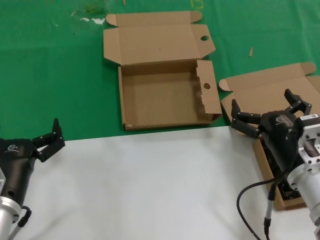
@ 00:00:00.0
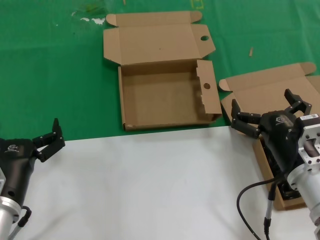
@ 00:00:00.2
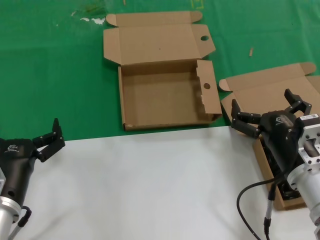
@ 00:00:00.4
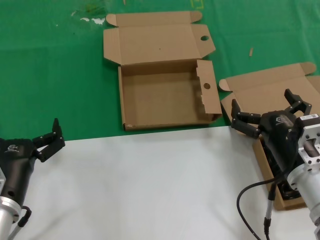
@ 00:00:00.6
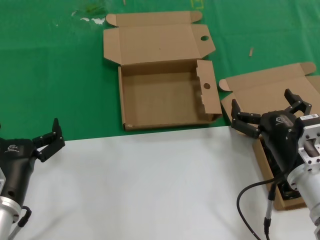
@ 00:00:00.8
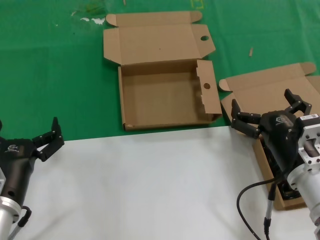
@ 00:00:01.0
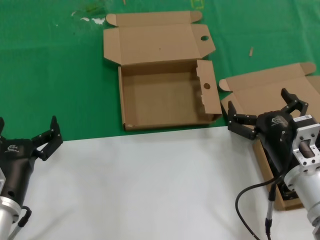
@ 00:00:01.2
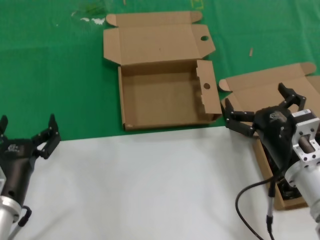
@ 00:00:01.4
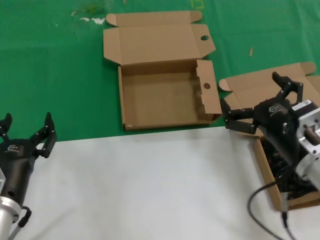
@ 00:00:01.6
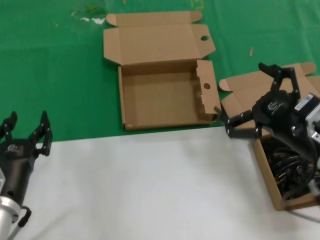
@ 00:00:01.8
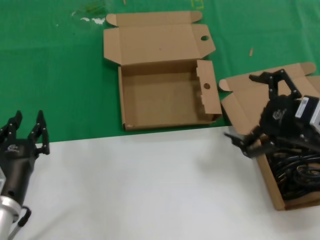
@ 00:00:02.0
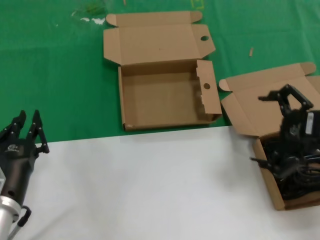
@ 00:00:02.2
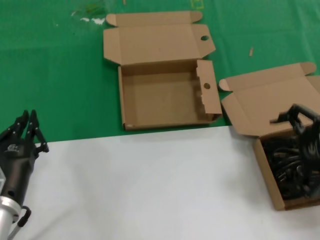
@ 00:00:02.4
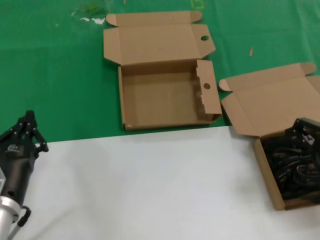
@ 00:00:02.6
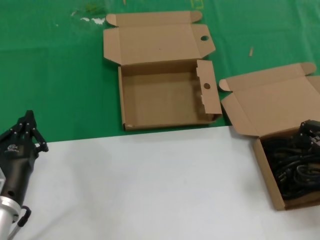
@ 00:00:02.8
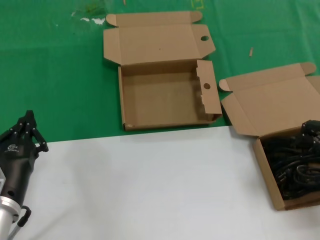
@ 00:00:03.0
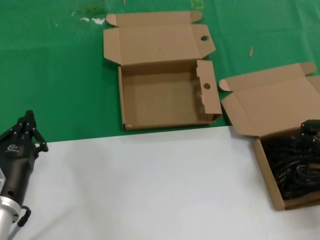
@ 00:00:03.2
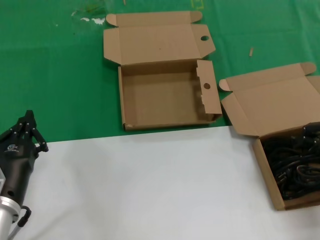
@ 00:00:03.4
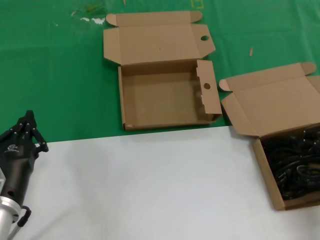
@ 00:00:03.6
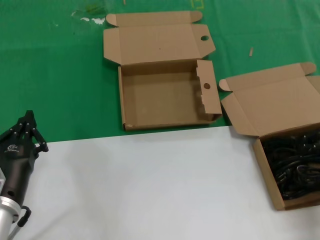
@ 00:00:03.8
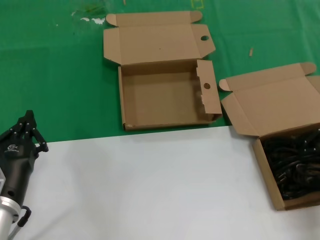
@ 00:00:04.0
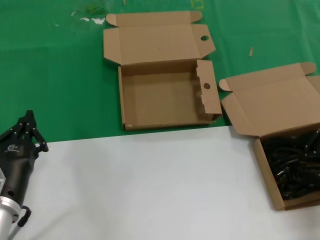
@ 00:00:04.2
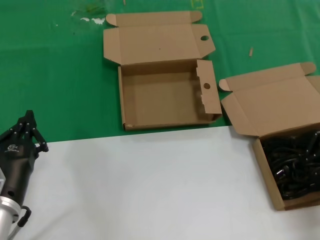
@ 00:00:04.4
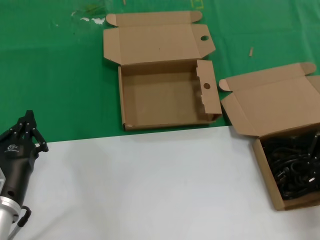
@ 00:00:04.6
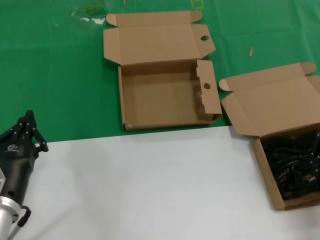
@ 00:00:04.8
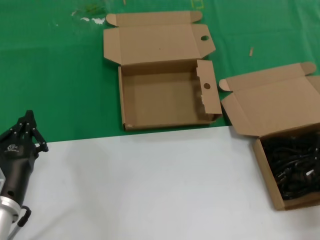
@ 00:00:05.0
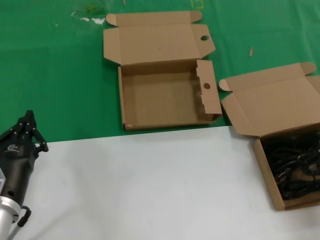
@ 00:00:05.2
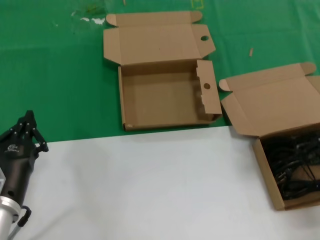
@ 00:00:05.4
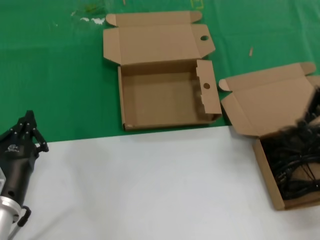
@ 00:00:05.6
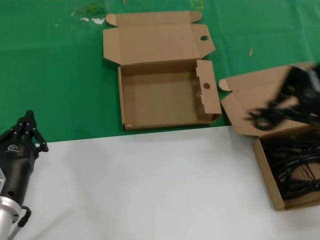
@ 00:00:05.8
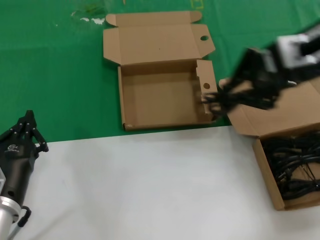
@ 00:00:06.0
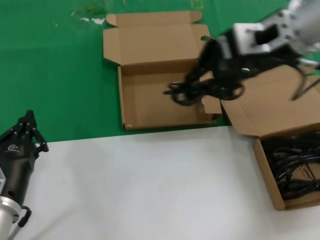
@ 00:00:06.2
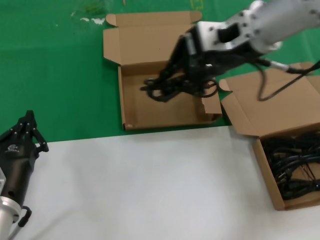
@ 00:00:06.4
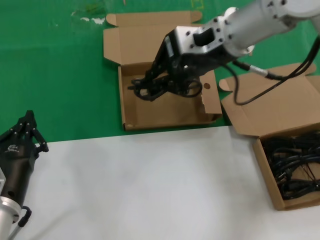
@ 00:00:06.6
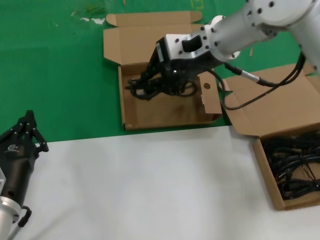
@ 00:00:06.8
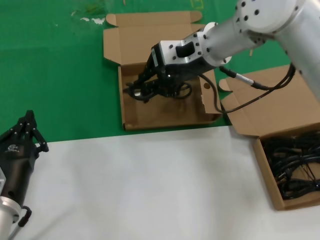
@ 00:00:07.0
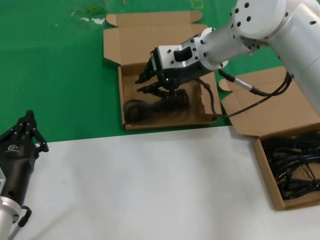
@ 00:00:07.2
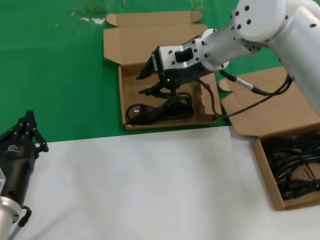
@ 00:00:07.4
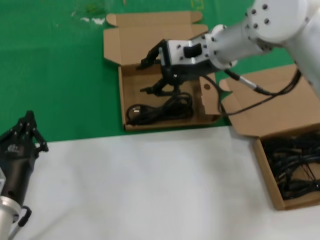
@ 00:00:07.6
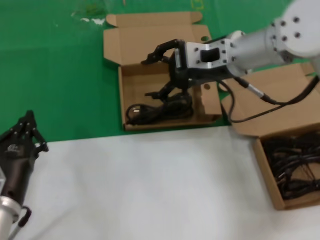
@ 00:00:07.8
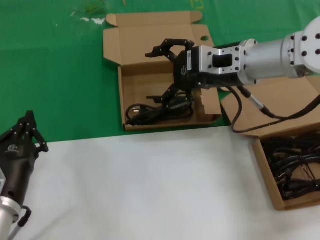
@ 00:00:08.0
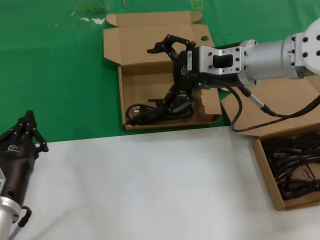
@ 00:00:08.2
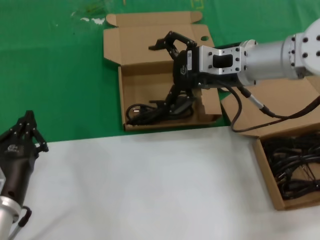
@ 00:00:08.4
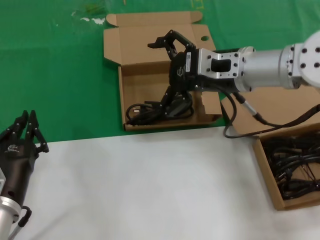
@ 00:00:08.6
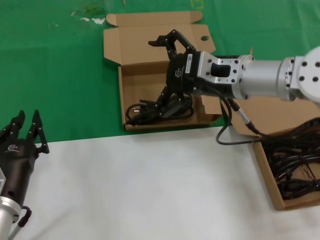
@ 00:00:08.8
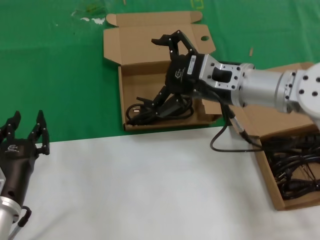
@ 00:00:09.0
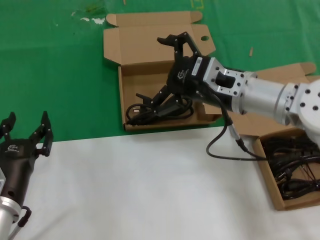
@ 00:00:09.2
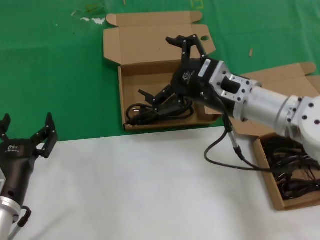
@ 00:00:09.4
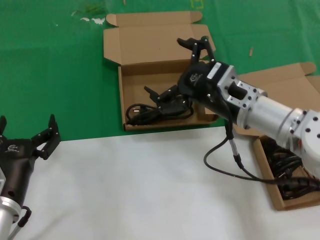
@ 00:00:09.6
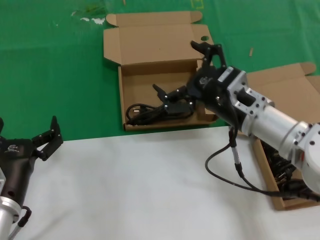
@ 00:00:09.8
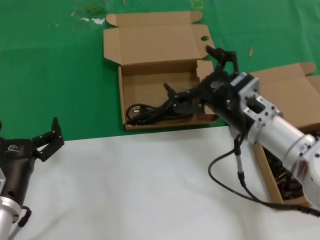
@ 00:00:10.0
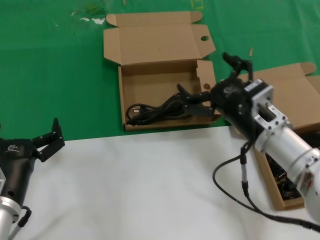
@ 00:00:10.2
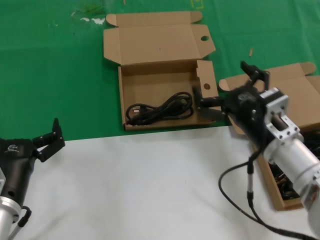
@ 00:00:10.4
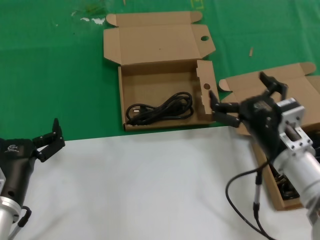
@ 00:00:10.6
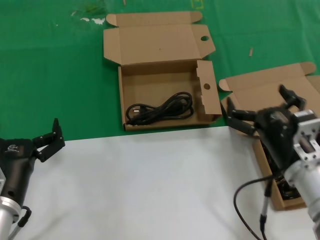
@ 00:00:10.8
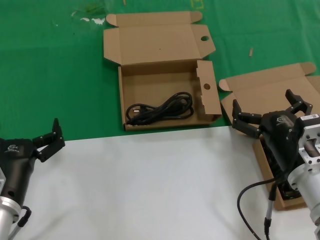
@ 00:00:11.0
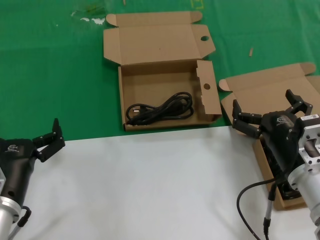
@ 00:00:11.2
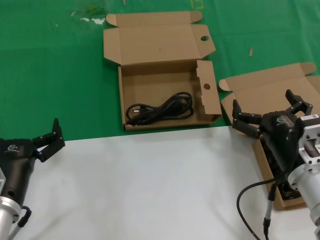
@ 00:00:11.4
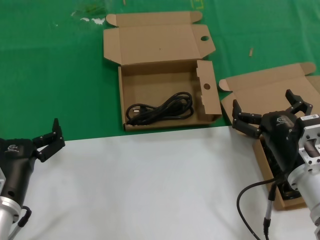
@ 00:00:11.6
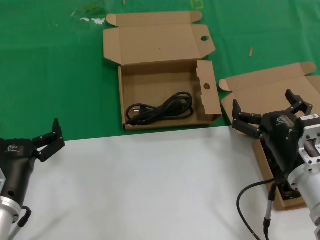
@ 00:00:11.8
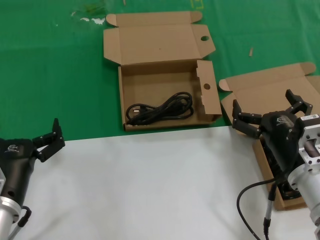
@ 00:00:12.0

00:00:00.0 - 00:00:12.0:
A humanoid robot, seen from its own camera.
Task of the whole recording: take the parts from the box containing them and put them into an empty box.
Step, 00:00:00.0 - 00:00:04.8: Grasp the data cable.
Step, 00:00:05.0 - 00:00:07.2: Place the data cable in the another box.
00:00:00.0 - 00:00:01.6: The hands stay close to where they were, moving slightly.
00:00:01.6 - 00:00:03.0: The right hand shifts about 20 cm upward and to the right.
00:00:04.4 - 00:00:06.0: The right hand moves upward and to the left, some 20 cm.
00:00:06.0 - 00:00:07.6: The right hand moves forward, to the left and downward, about 20 cm.
00:00:07.6 - 00:00:09.0: The right hand travels backward and downward by roughly 10 cm.
00:00:09.0 - 00:00:10.4: The right hand is displaced downward and backward by some 15 cm.
00:00:10.4 - 00:00:12.0: The right hand shifts by some 5 cm.

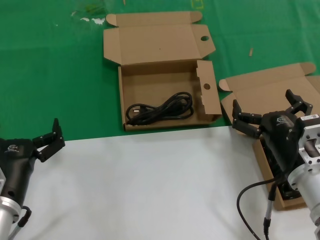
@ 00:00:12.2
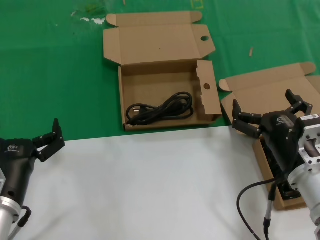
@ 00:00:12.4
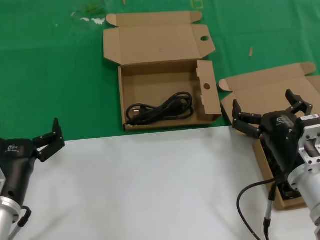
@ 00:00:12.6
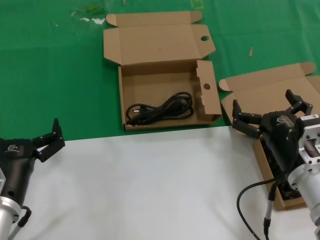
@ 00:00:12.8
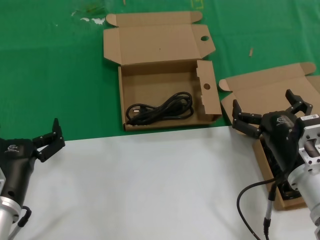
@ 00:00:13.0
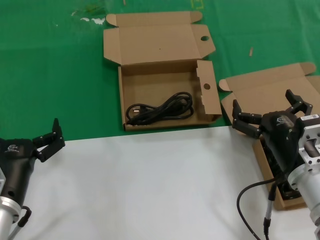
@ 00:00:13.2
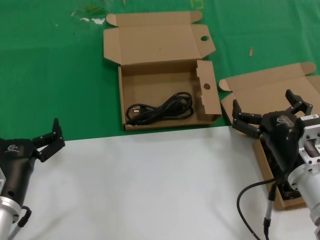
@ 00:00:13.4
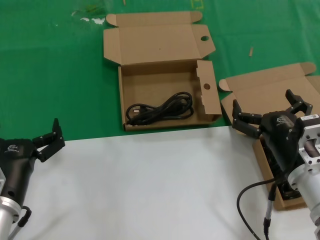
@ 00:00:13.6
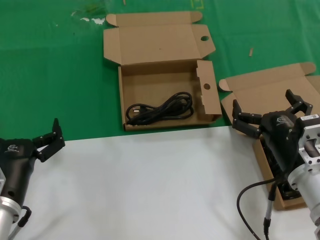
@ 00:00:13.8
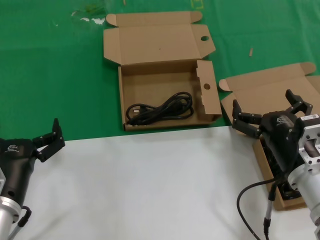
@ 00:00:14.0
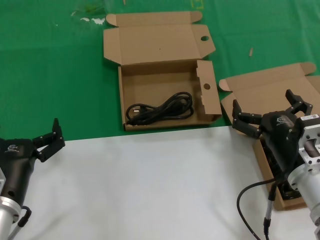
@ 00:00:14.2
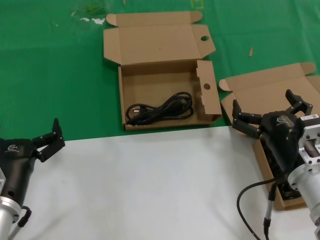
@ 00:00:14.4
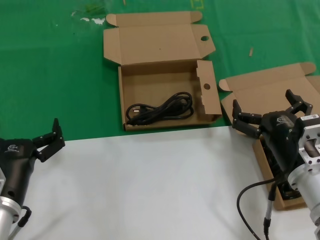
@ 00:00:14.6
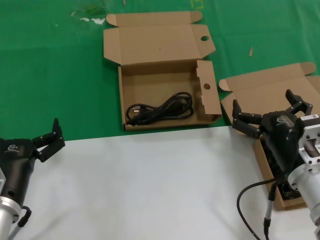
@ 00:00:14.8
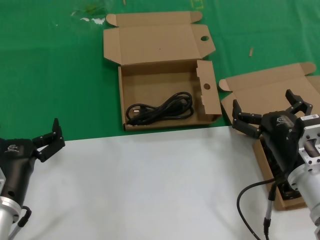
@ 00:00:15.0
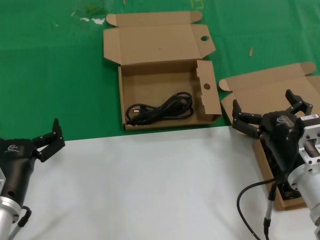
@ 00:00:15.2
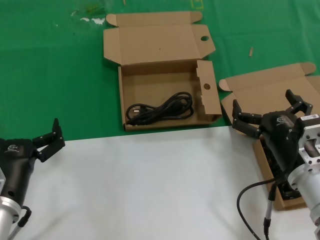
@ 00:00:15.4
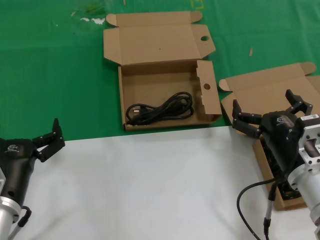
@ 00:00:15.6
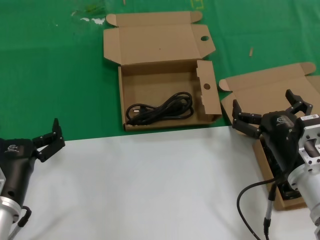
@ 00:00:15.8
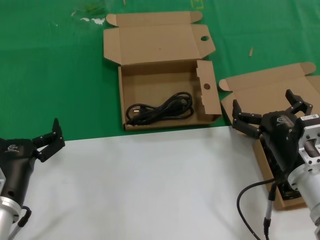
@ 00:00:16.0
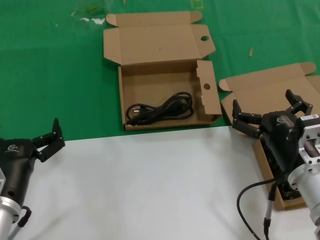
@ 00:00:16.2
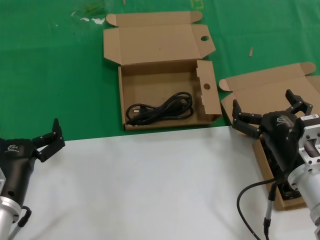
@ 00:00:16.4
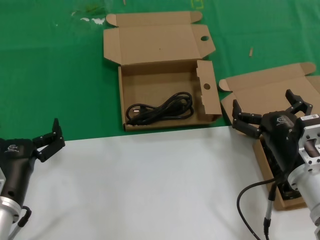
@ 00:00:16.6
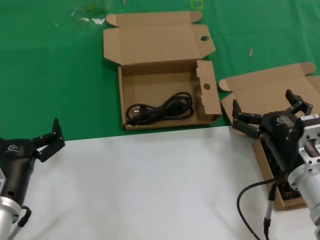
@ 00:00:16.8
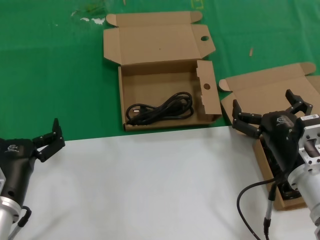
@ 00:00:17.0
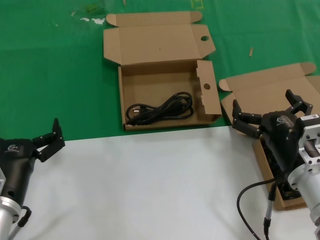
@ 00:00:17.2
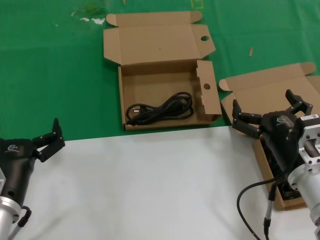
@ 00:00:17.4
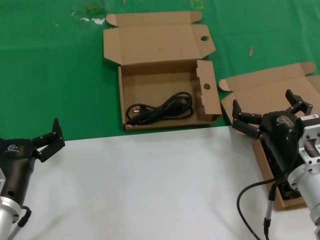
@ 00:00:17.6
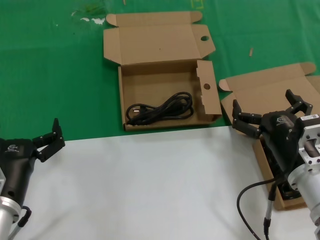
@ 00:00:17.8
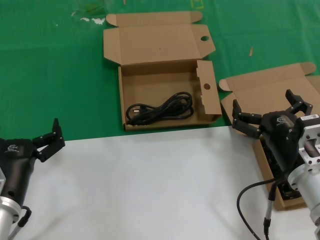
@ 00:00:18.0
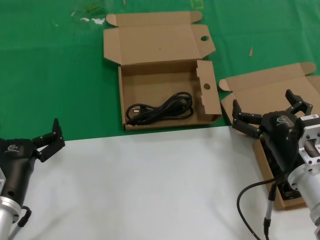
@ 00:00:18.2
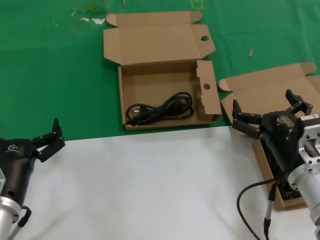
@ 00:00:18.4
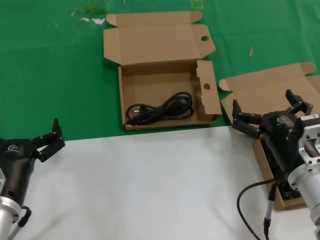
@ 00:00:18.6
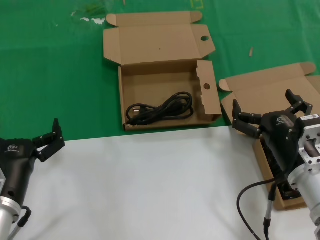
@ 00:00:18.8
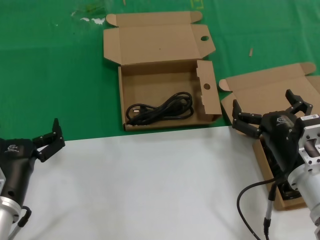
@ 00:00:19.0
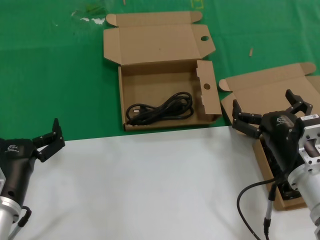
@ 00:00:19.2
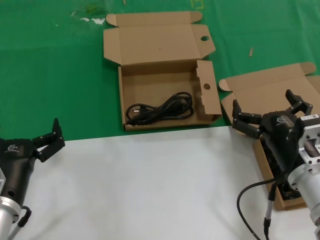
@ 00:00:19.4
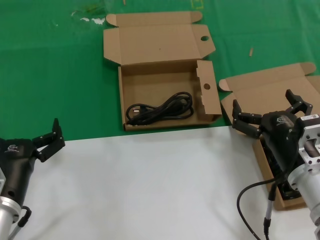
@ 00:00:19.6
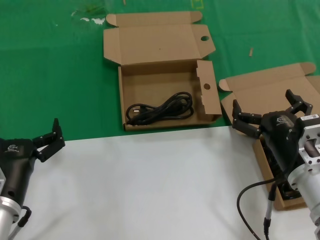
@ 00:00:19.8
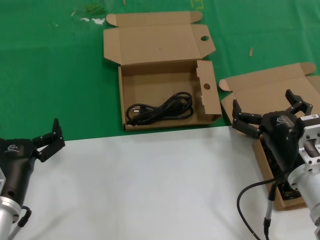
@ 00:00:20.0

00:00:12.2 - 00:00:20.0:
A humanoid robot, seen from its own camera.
Task of the whole recording: take the parts from the box containing them and put them into an empty box.
00:00:12.2 - 00:00:20.0: The two hands keep their place.
